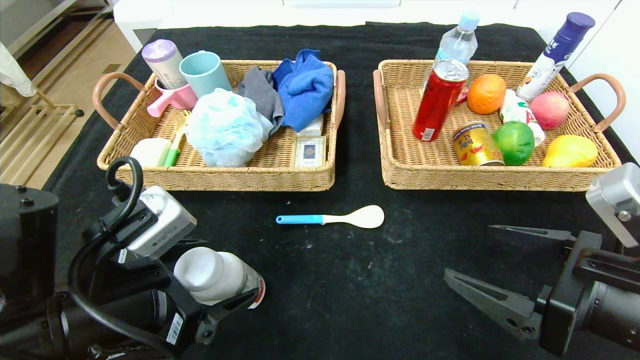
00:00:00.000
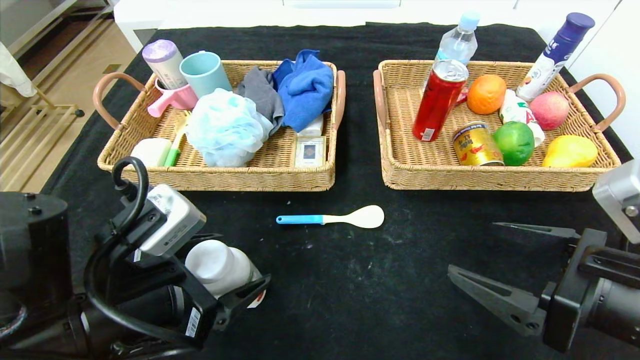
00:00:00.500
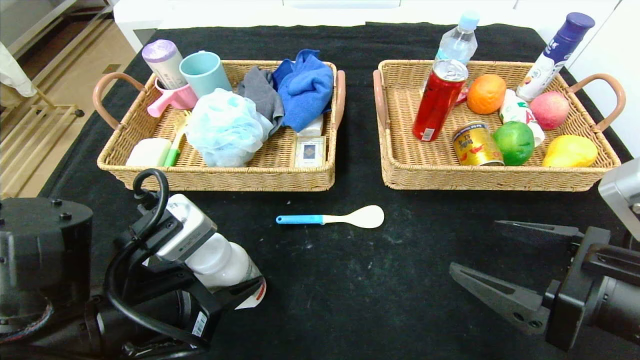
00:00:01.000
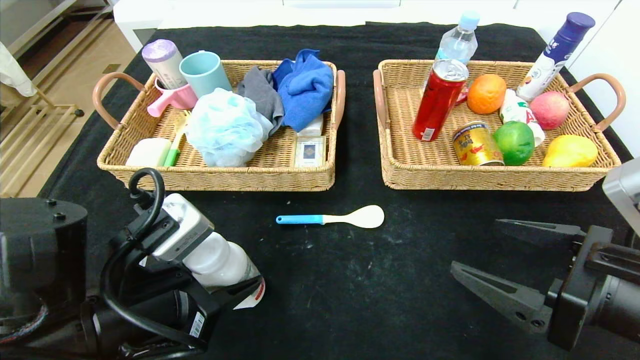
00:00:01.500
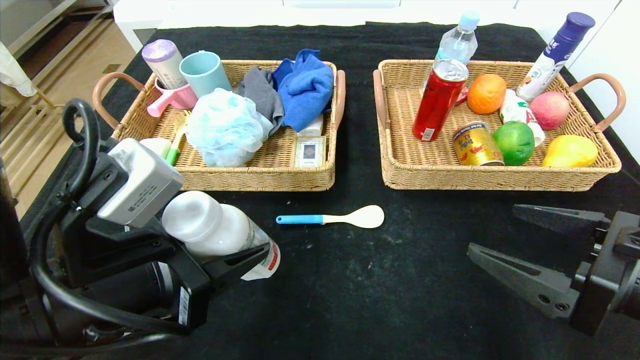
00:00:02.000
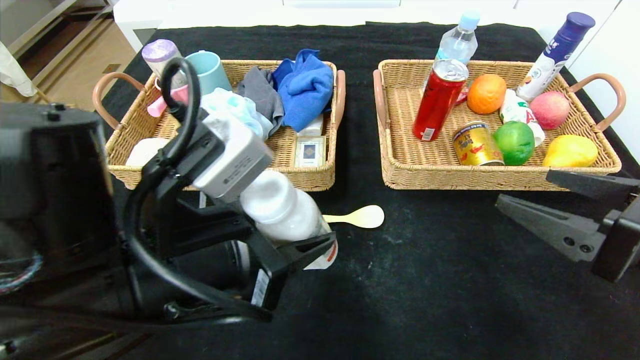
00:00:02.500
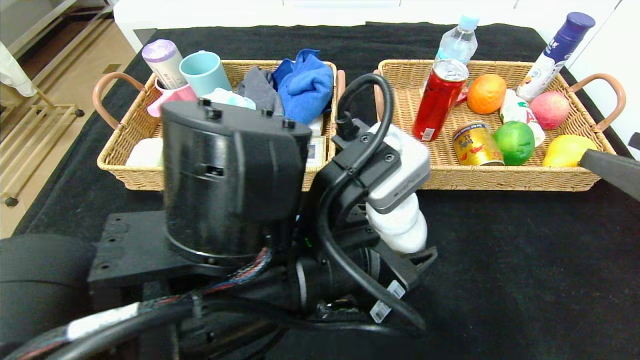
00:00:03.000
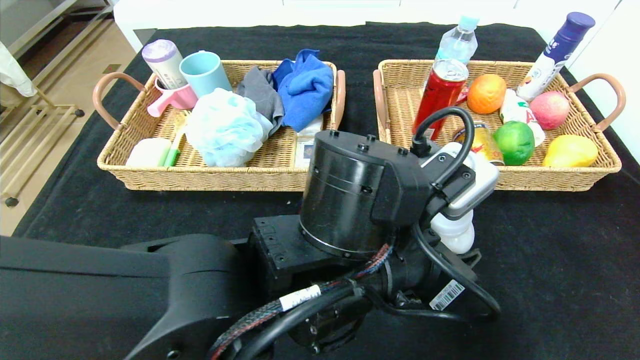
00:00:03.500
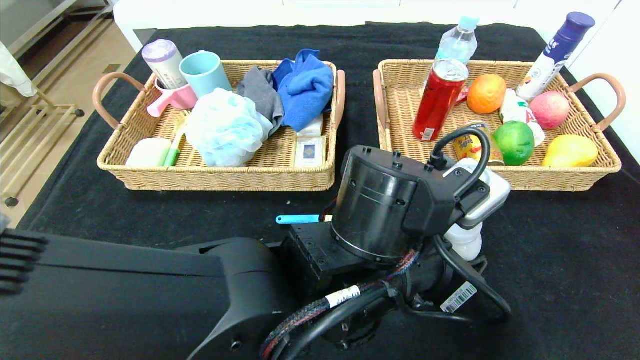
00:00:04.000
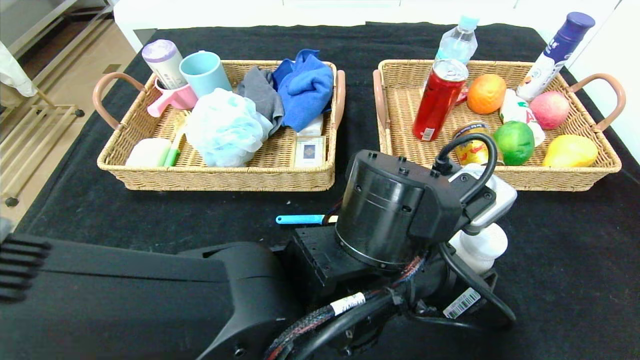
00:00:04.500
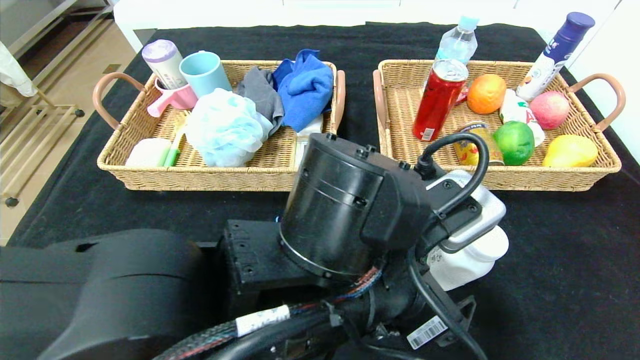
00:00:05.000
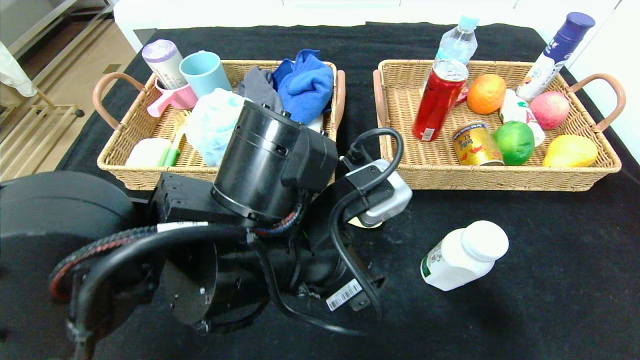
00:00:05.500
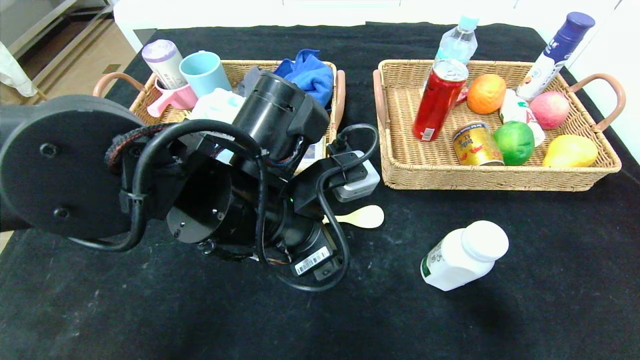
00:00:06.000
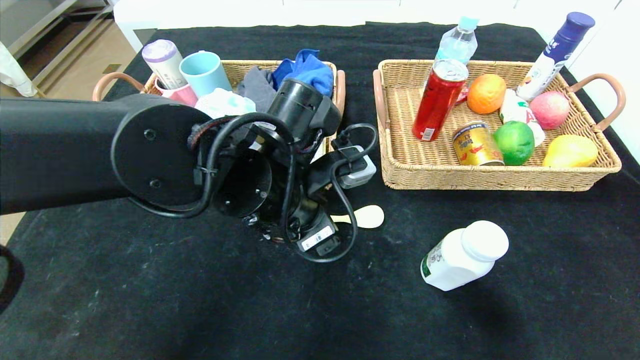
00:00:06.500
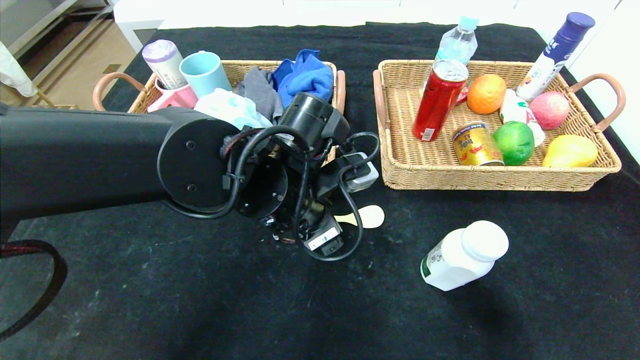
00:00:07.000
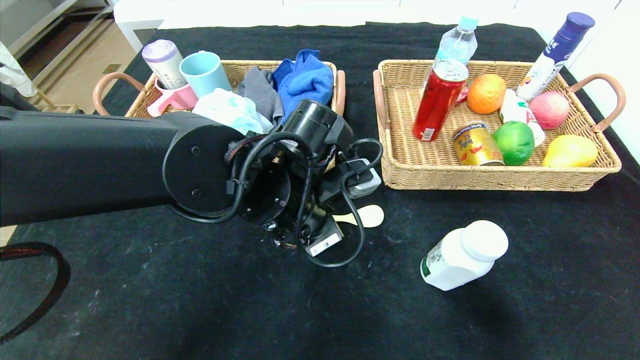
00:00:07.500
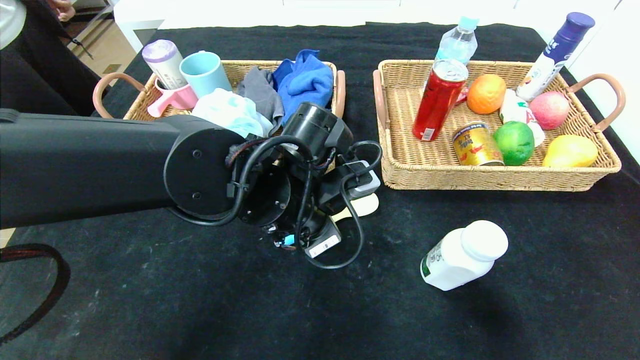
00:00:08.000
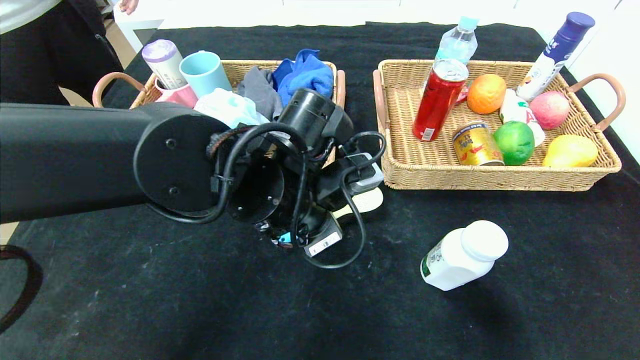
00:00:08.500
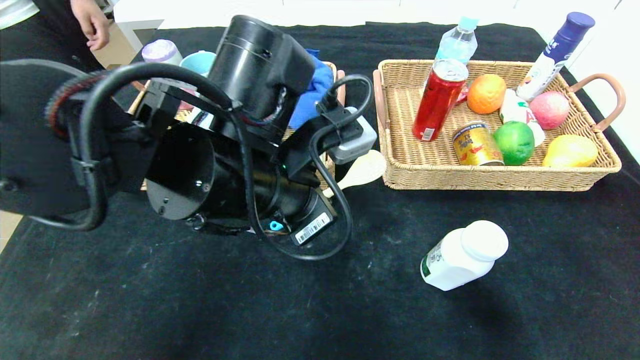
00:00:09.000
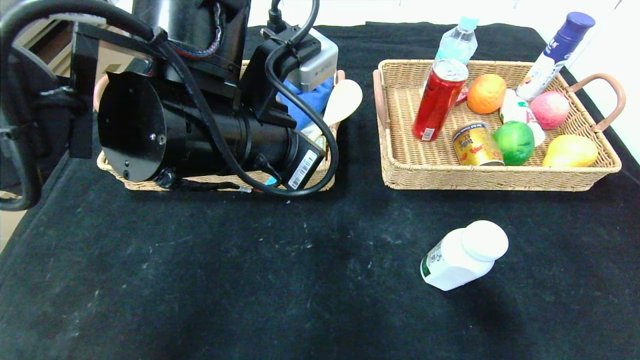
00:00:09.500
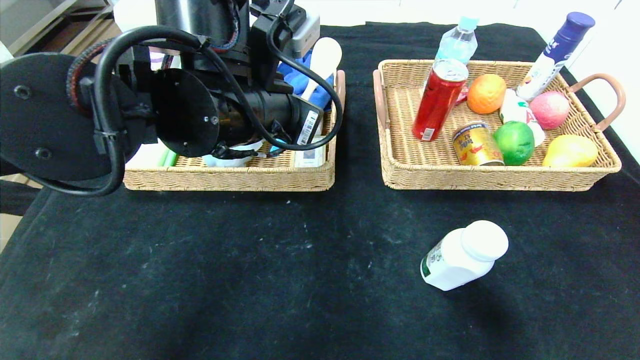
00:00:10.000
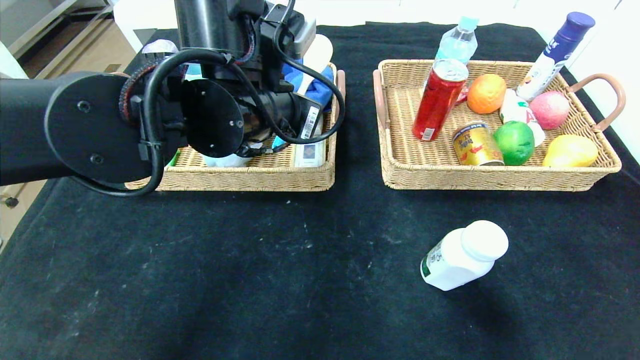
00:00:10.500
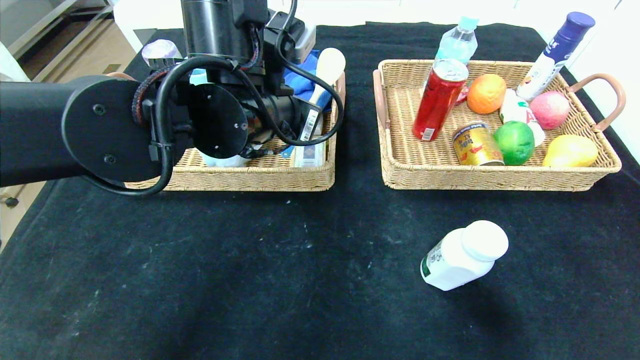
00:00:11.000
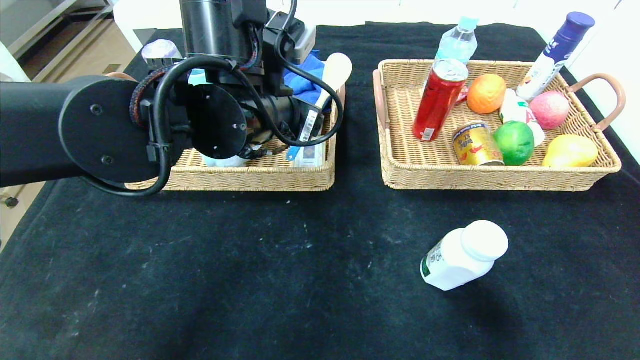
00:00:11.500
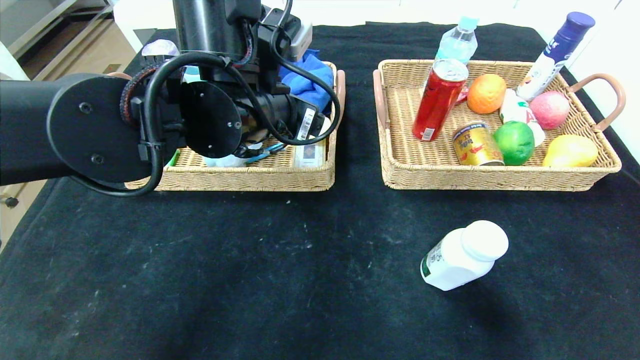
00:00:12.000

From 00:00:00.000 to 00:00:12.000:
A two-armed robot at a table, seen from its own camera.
Step, from 00:00:00.000 to 00:00:04.500: Place the yogurt in the center of the table.
Step, from 00:00:05.000 to 00:00:11.500: Grasp the spoon and put it in the left basket.
From 00:00:00.000 to 00:00:02.000: The left gripper closes its fingers.
From 00:00:02.000 to 00:00:04.000: The left gripper is displaced to the right by about 20 cm, while the right gripper shifts about 10 cm upward, to the right and backward.
From 00:00:04.000 to 00:00:06.000: The left gripper is displaced to the left by roughly 10 cm, and opens.
From 00:00:06.000 to 00:00:08.000: The left gripper ends up about 5 cm from where it was, and closes its fingers.
From 00:00:08.000 to 00:00:10.000: The left gripper travels upward by about 10 cm.
From 00:00:10.000 to 00:00:12.000: The left gripper opens up.

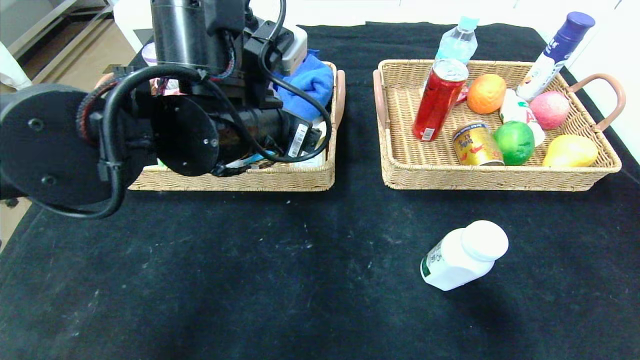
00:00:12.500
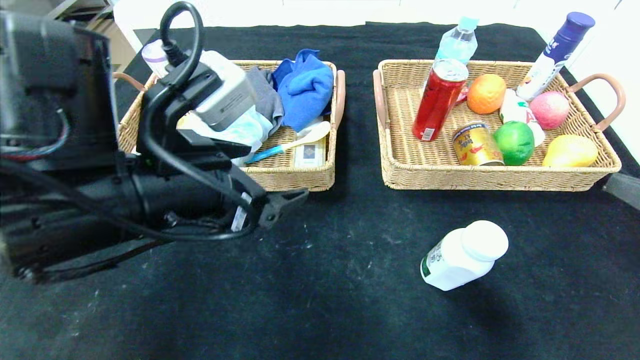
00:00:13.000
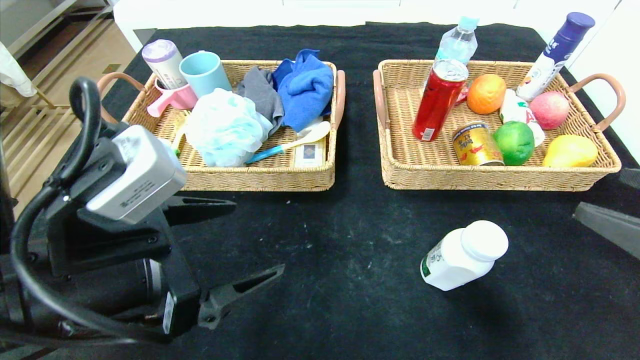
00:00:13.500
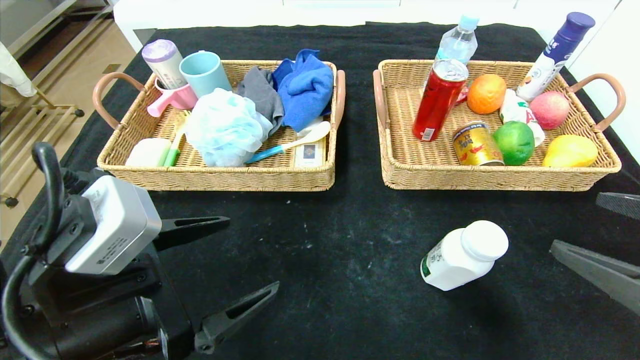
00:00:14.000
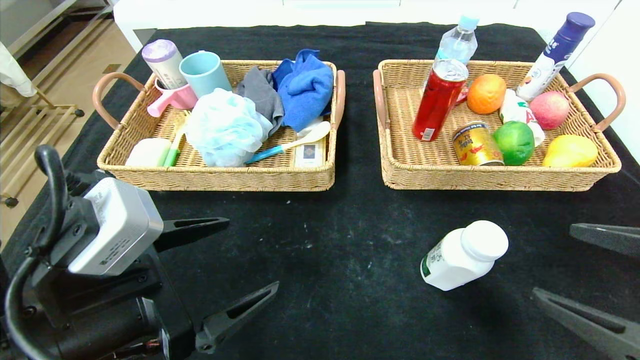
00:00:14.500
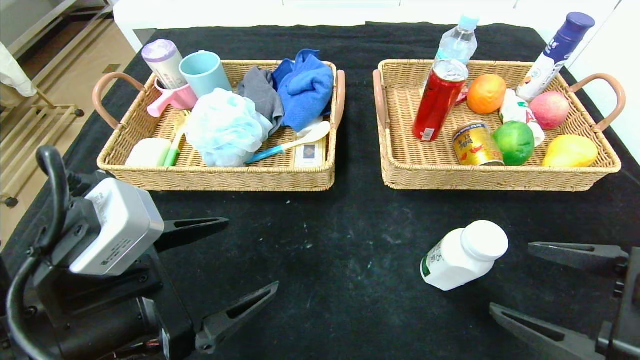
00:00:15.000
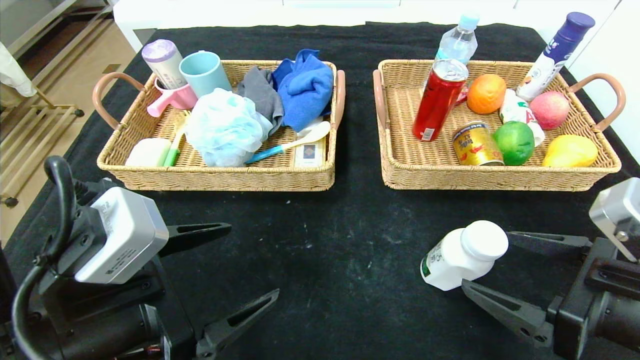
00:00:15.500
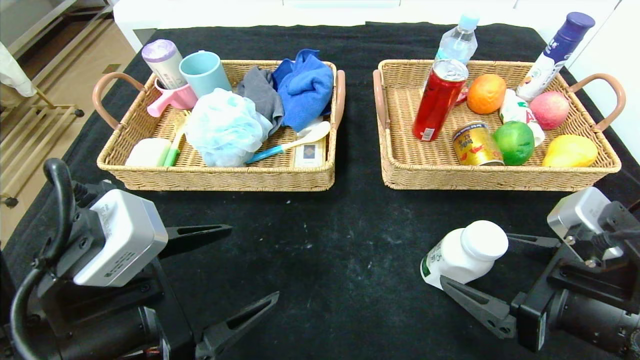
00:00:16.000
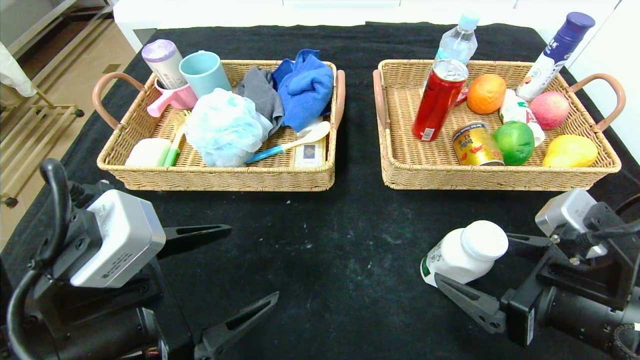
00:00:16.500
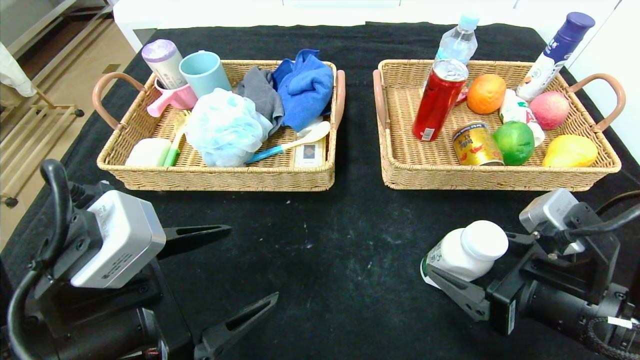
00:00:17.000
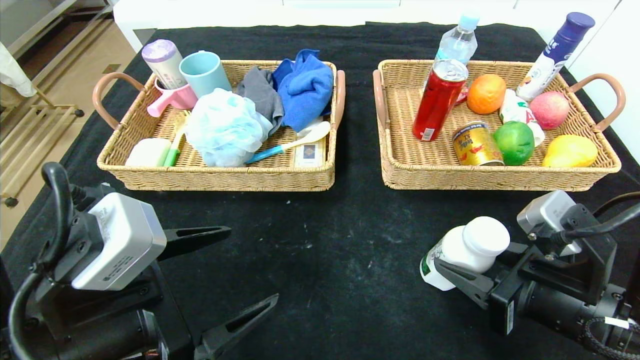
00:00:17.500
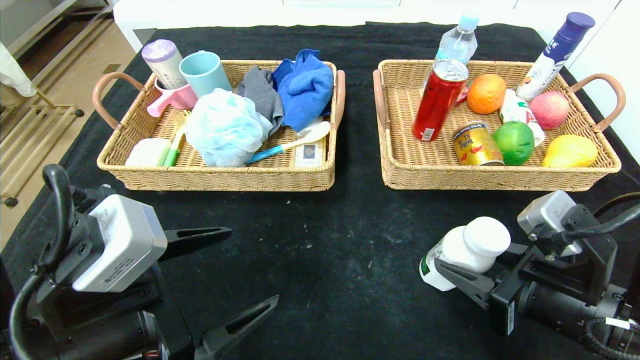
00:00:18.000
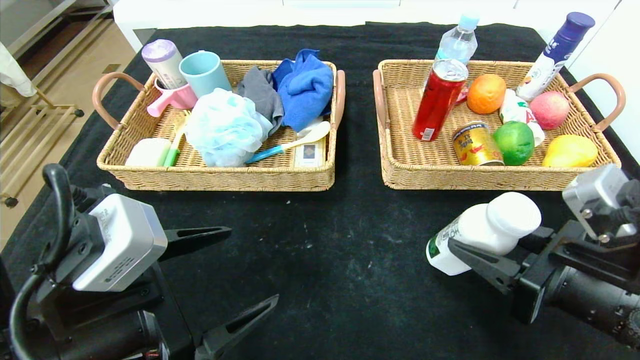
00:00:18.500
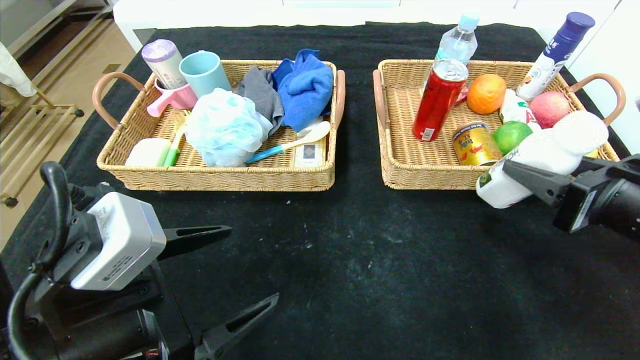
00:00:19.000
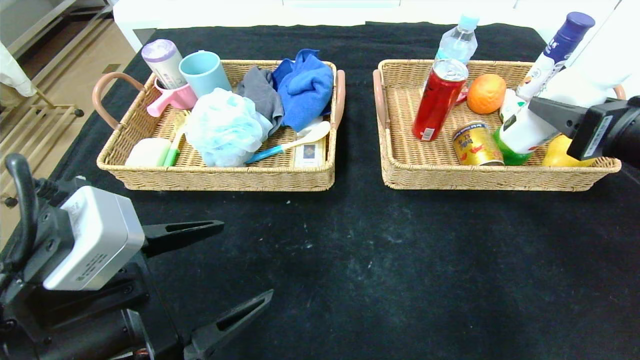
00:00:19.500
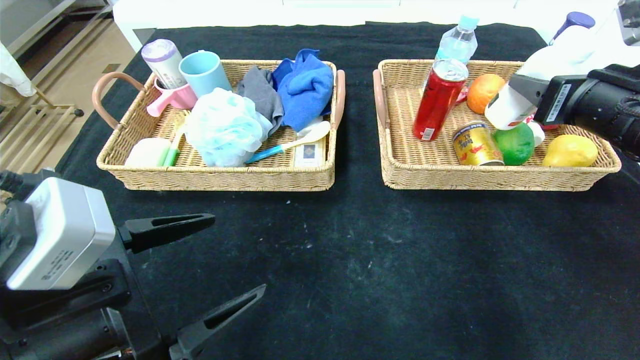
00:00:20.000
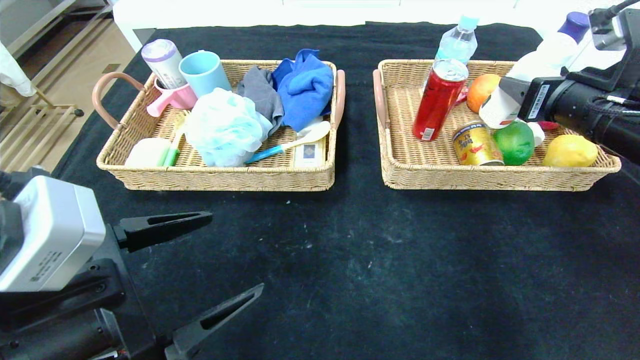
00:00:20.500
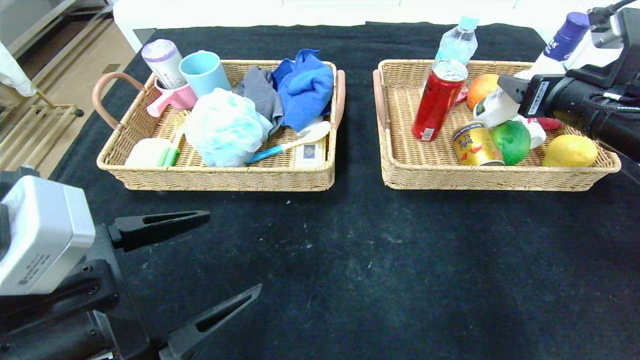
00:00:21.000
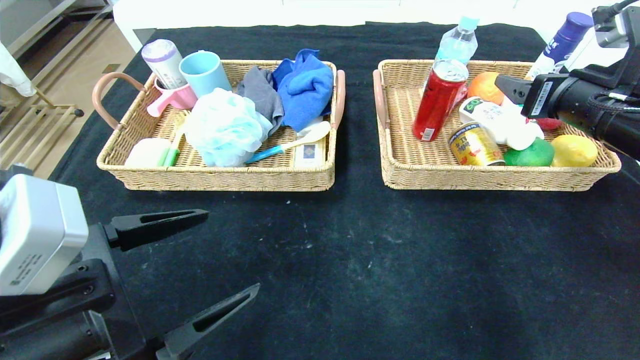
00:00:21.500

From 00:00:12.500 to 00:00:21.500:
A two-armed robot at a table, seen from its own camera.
Step, from 00:00:12.500 to 00:00:21.000: Grasp the yogurt and put it in the right basket.
From 00:00:12.500 to 00:00:14.500: The left gripper heads backward, to the left and downward, covering approximately 20 cm. Meanwhile the right gripper moves downward, about 5 cm.
From 00:00:14.500 to 00:00:17.000: The right gripper travels forward, to the left and downward by roughly 10 cm.
From 00:00:17.000 to 00:00:19.500: The right gripper shifts some 15 cm upward, to the right and forward, and closes.
From 00:00:19.500 to 00:00:21.500: The right gripper travels forward by about 10 cm, and opens.
